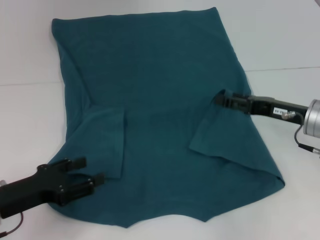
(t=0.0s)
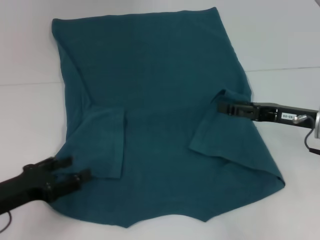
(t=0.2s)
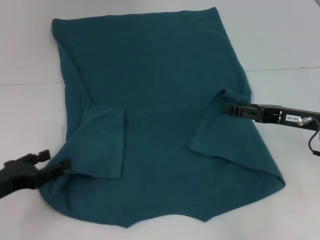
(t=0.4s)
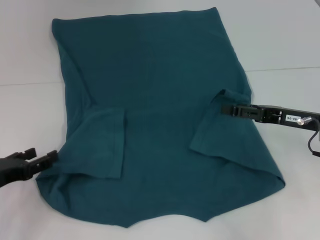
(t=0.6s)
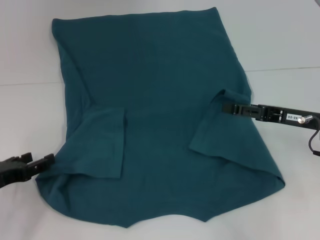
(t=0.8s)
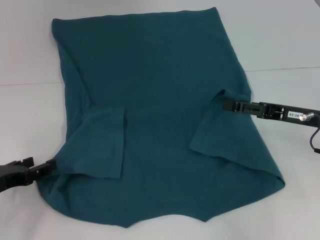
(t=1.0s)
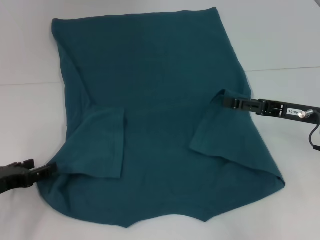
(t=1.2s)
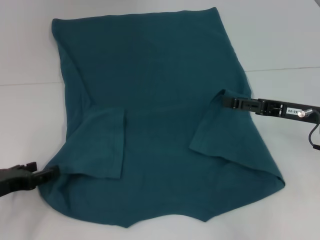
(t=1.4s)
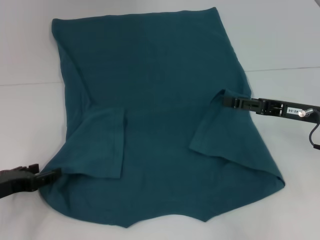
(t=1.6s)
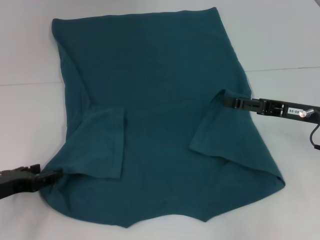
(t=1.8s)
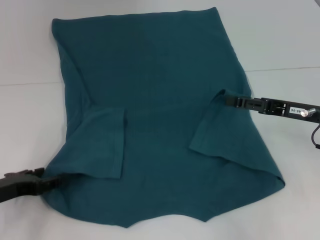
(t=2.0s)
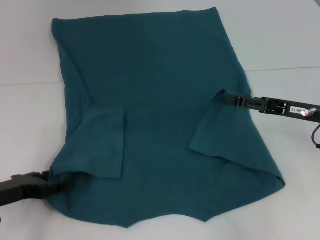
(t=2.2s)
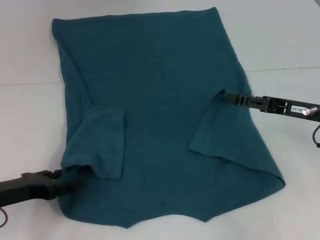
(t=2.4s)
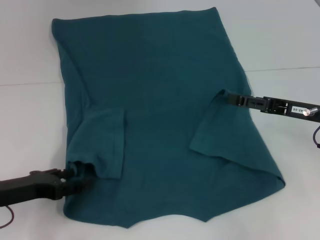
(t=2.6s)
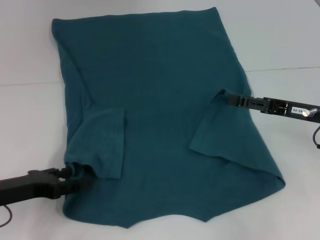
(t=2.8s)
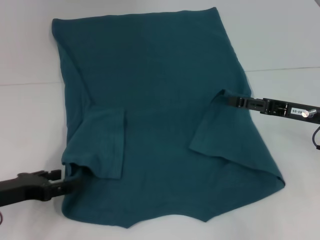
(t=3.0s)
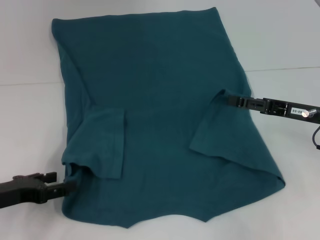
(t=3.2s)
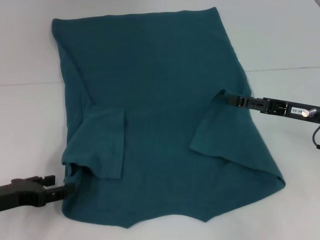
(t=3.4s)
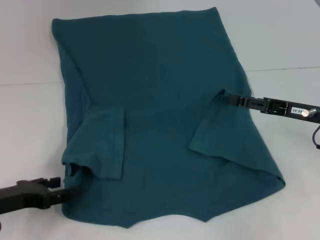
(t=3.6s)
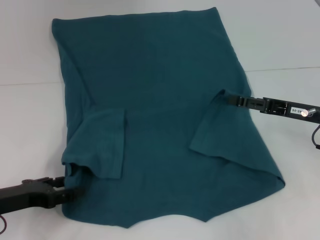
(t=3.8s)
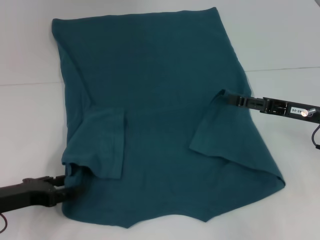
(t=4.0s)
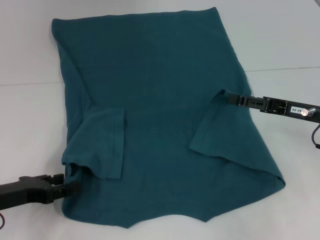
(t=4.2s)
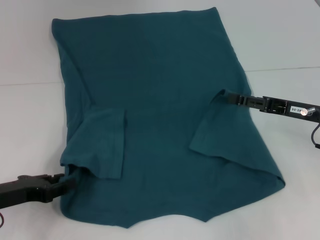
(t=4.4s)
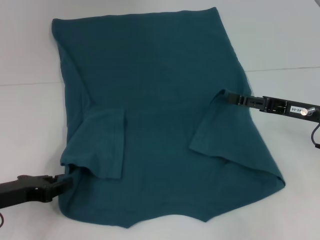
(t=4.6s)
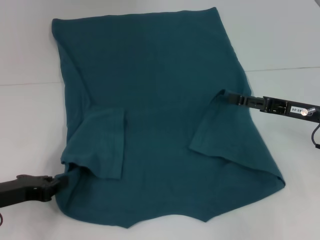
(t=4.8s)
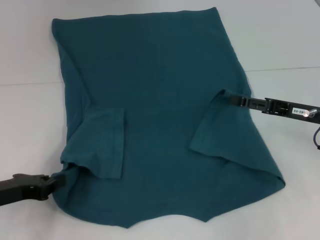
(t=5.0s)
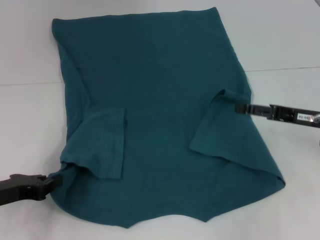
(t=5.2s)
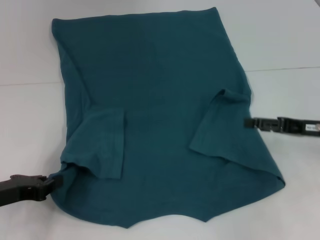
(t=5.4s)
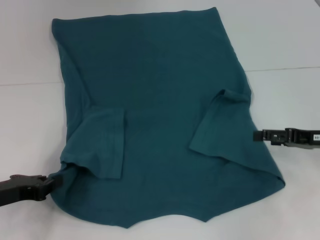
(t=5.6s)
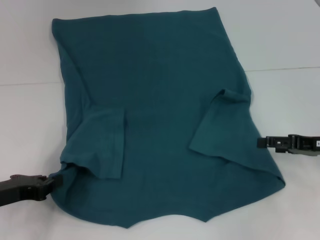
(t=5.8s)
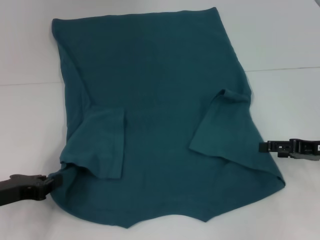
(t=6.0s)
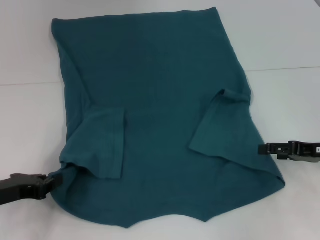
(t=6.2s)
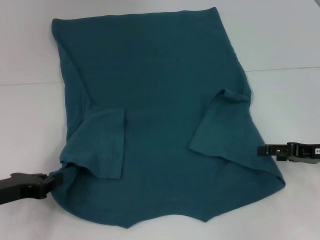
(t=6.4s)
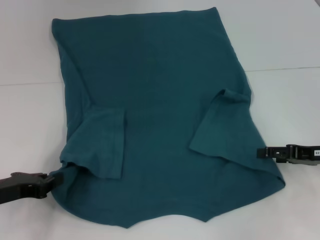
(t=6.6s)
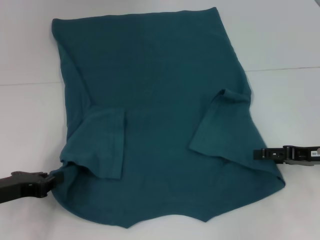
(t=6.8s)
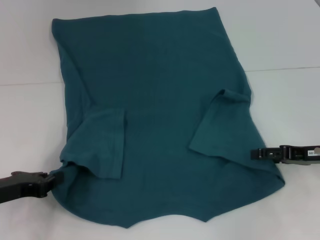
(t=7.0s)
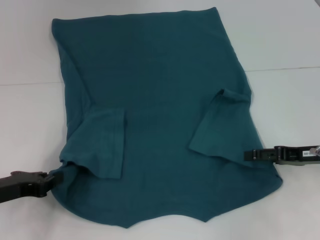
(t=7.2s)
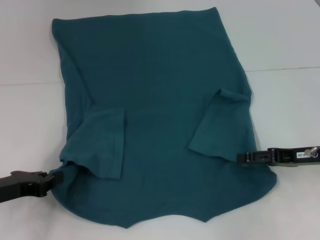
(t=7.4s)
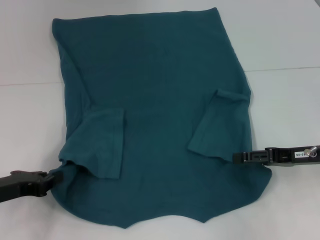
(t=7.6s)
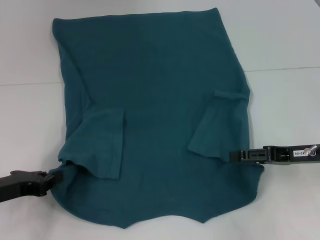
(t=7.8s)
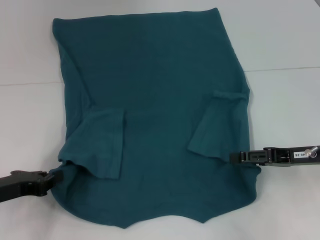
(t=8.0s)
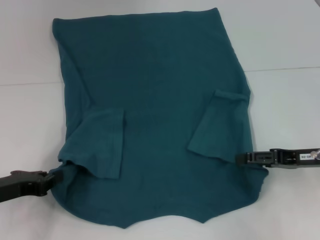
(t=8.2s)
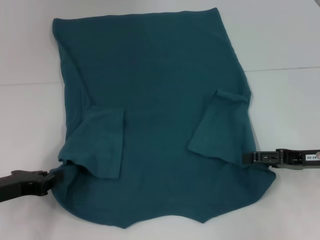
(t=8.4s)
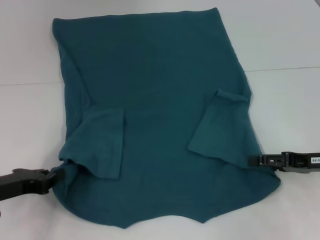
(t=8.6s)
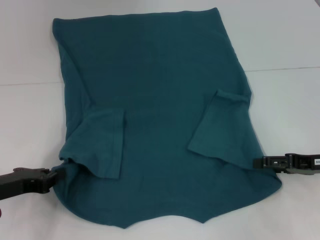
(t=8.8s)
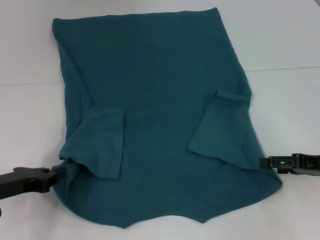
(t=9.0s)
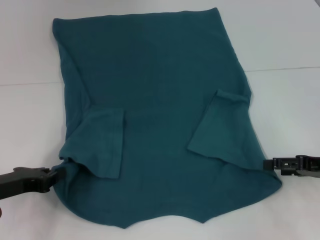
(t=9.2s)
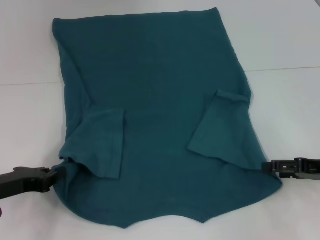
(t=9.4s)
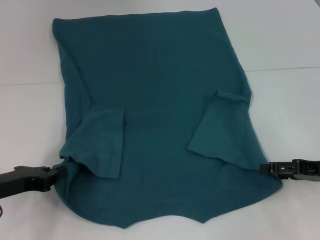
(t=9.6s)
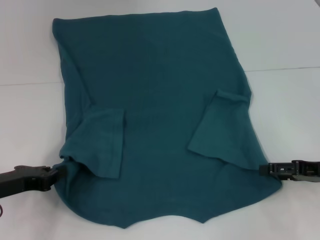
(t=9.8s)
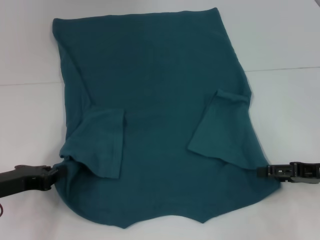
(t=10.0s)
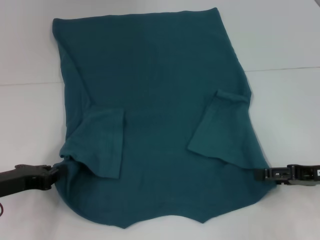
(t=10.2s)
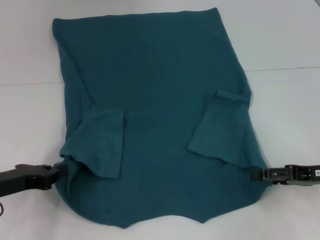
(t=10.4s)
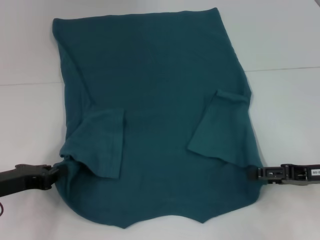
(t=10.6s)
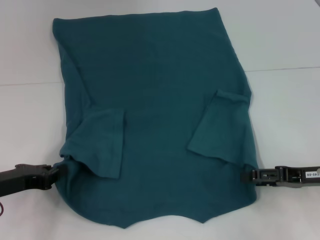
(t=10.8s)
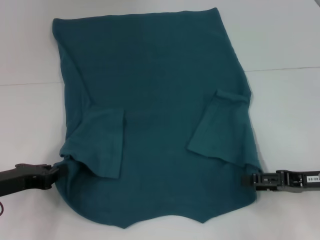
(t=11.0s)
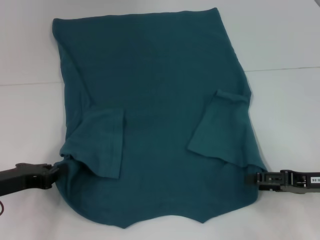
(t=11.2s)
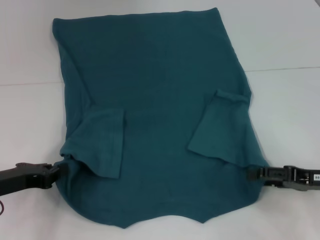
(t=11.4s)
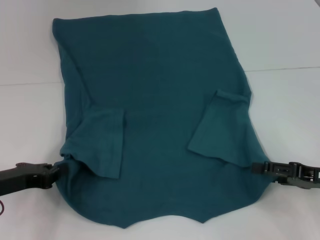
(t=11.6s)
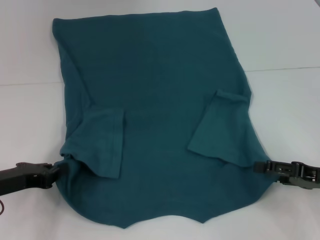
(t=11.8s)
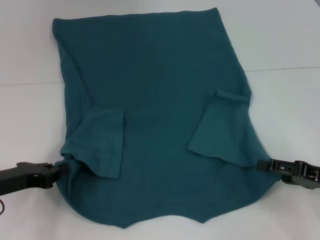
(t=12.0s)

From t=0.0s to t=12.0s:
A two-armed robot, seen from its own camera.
Step, from t=0.0s to t=5.0s: Grab the bottom left corner with your left hand.
From t=0.0s to t=1.6s: The left gripper ends up approximately 5 cm from where it was.
From t=1.6s to t=3.0s: The grippers stay close to where they were, moving slightly.
From t=3.0s to t=4.4s: Both grippers stay about where they are.
From t=4.4s to t=6.0s: The left gripper closes. Meanwhile the right gripper ends up some 5 cm from where it was.
From t=6.0s to t=12.0s: The grippers move only a little.

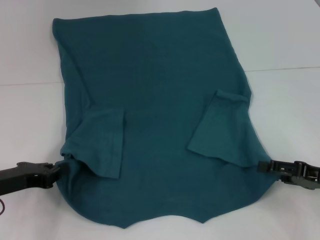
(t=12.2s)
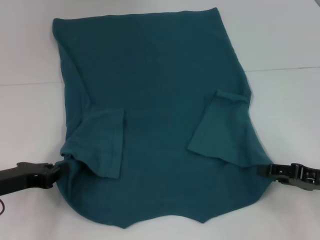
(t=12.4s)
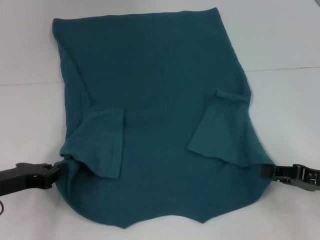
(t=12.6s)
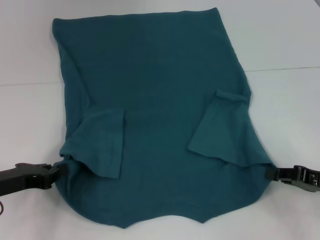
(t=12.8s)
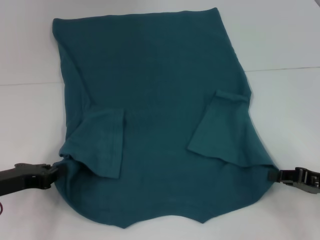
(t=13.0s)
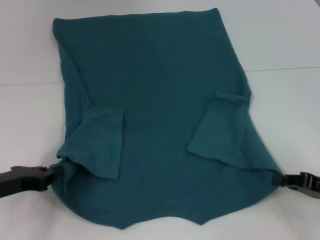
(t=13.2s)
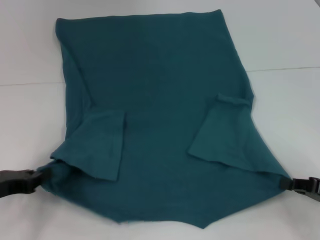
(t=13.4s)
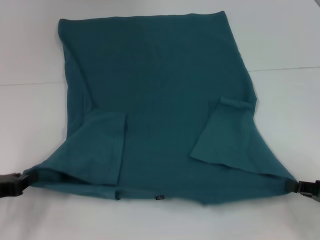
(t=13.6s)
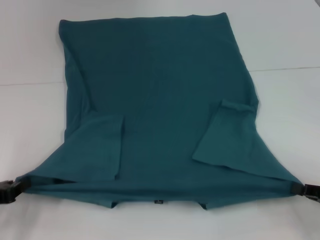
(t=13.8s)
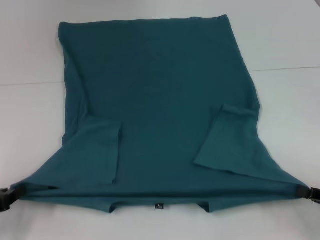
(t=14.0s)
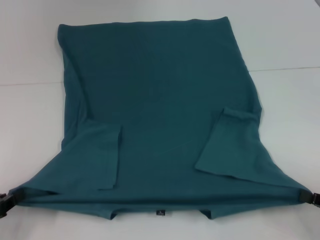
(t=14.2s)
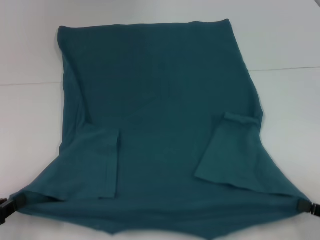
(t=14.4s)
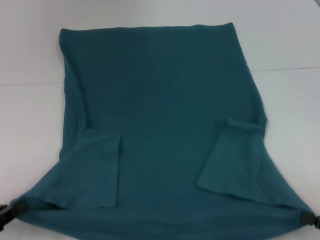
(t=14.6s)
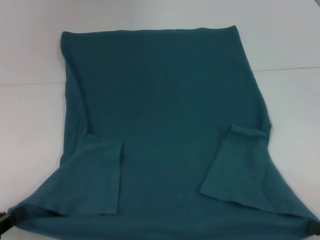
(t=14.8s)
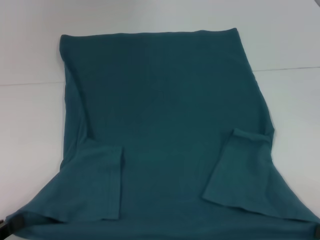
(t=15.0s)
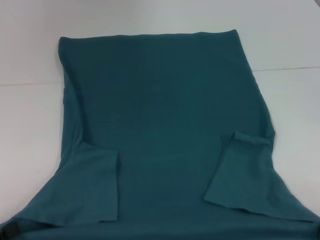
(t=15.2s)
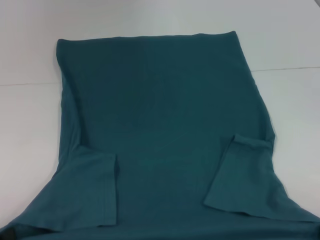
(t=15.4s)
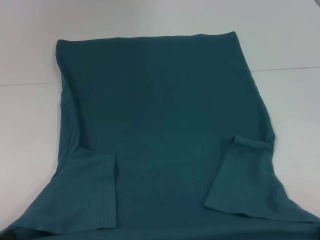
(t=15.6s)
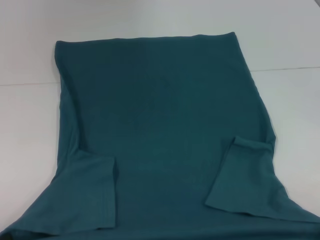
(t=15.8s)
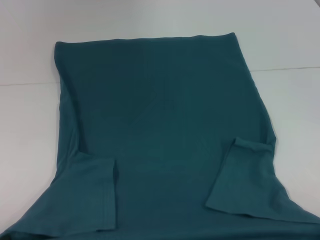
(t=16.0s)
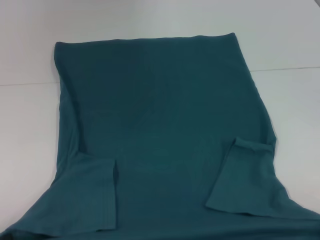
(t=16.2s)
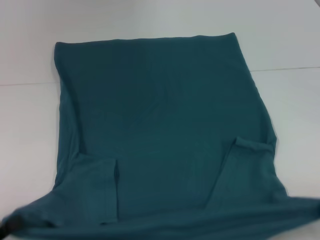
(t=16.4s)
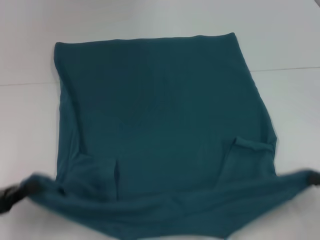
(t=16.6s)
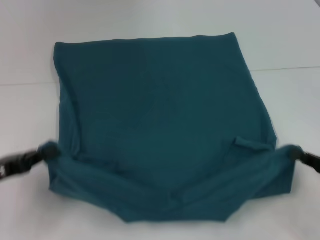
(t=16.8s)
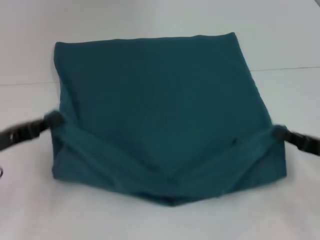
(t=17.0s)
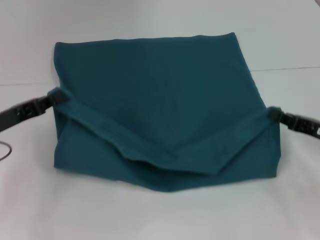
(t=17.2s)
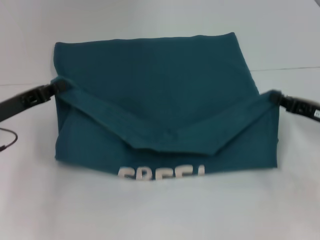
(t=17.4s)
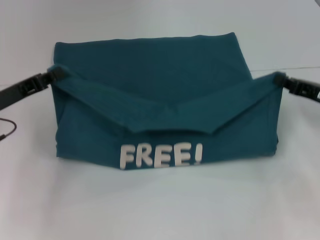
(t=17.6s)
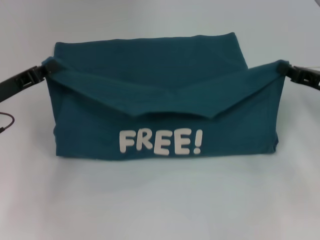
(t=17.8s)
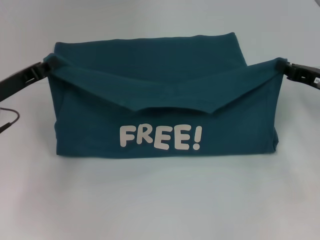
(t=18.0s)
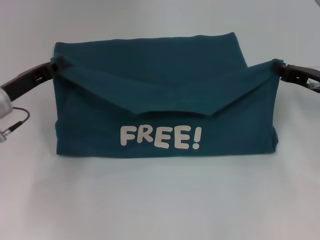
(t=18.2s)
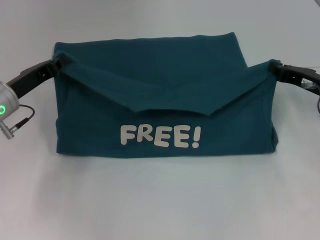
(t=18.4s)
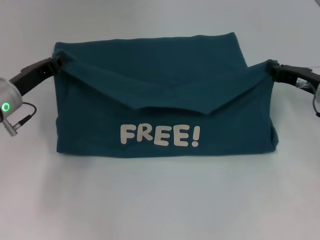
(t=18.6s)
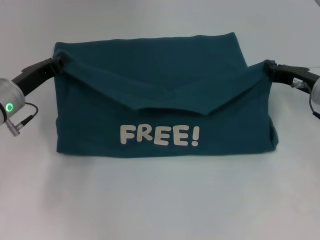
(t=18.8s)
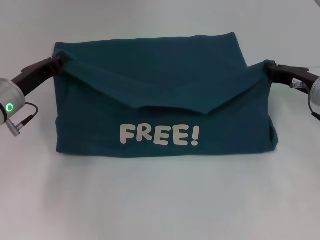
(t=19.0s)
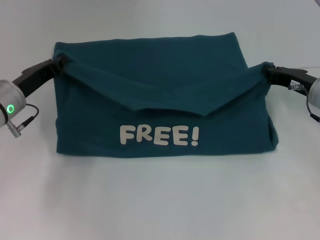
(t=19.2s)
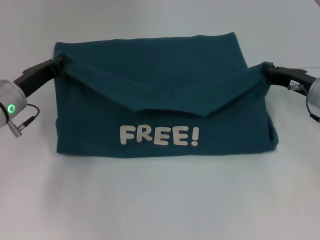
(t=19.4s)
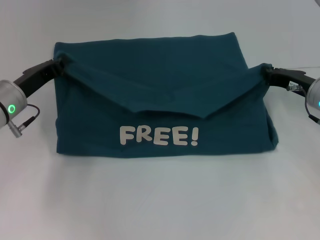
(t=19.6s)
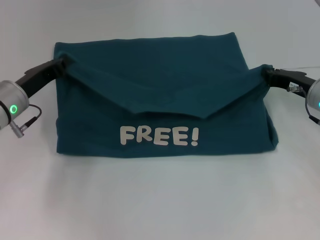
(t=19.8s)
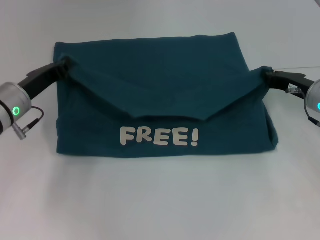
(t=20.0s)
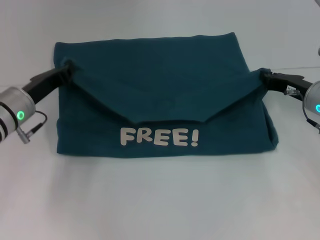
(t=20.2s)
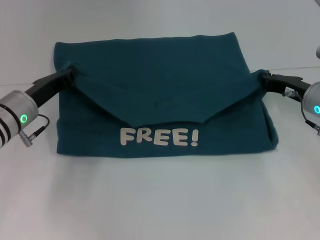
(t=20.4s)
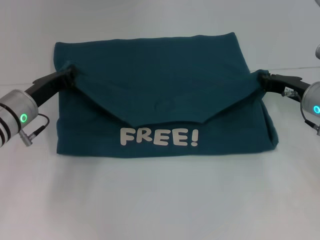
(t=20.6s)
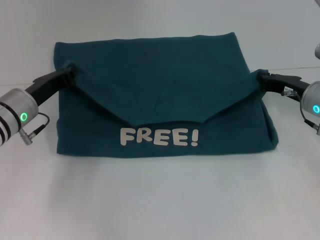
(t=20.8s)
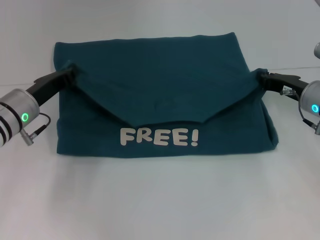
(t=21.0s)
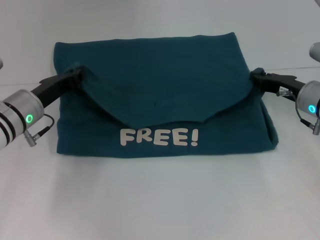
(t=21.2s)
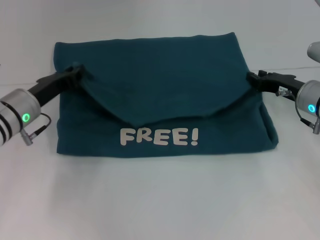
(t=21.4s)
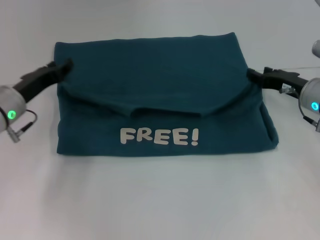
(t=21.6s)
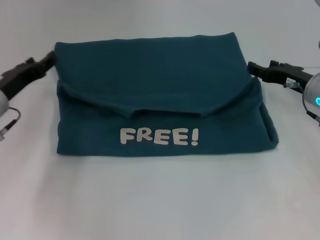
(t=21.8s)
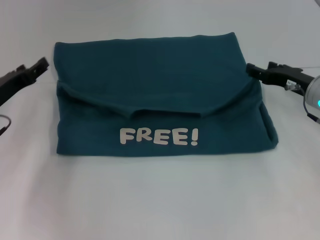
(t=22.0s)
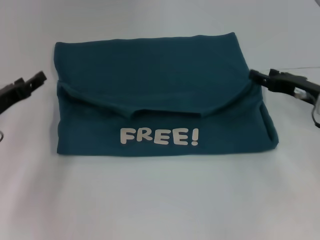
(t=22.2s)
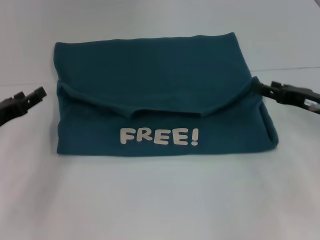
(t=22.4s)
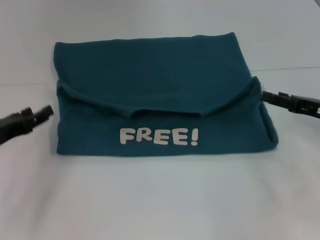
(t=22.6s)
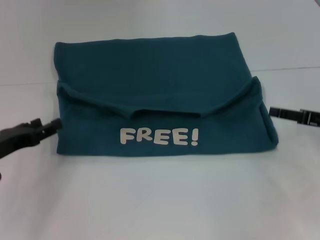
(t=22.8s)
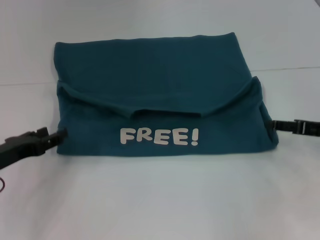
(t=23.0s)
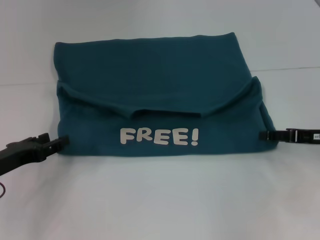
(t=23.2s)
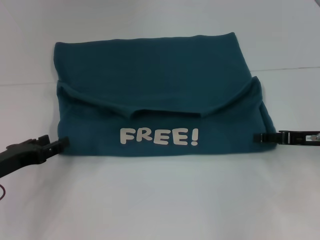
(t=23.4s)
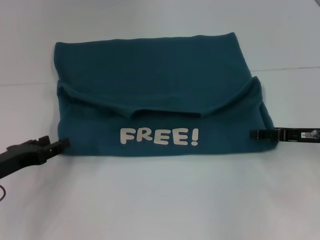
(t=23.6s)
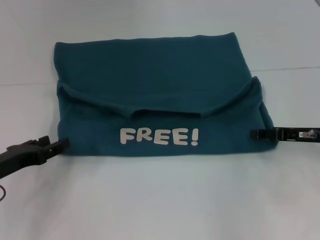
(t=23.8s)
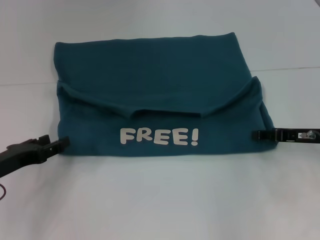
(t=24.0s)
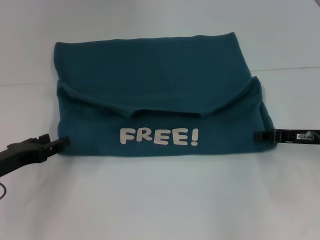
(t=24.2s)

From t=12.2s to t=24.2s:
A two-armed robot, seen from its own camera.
Step, from t=13.2s to t=21.8s: Fold the clothes to the left.
Step, from t=13.2s to t=21.8s: Fold the clothes to the right.
From t=12.2s to t=13.8s: The left gripper moves some 5 cm, while the right gripper ends up some 5 cm from where it was, and closes.
From t=13.8s to t=15.2s: Both grippers move backward, about 10 cm.
From t=15.2s to t=16.6s: Both grippers move forward, some 5 cm.
From t=16.6s to t=18.2s: The left gripper is displaced forward and to the right by roughly 20 cm. The right gripper travels forward by roughly 20 cm.
From t=18.2s to t=21.2s: The grippers make only small movements.
From t=21.2s to t=22.6s: The right gripper moves backward and to the right, approximately 10 cm, and opens. Meanwhile the left gripper moves to the left and backward, some 10 cm, and opens up.
From t=22.6s to t=24.2s: The right gripper closes up.
